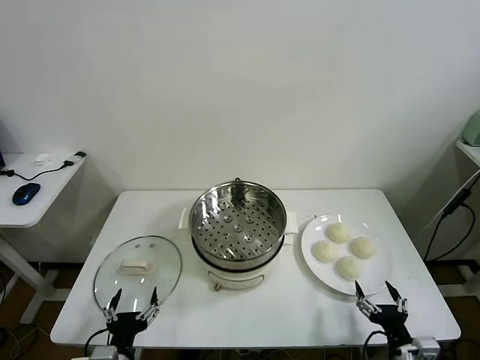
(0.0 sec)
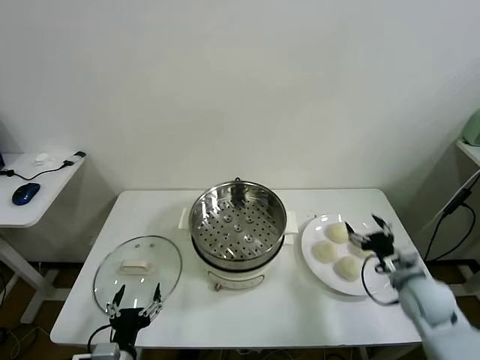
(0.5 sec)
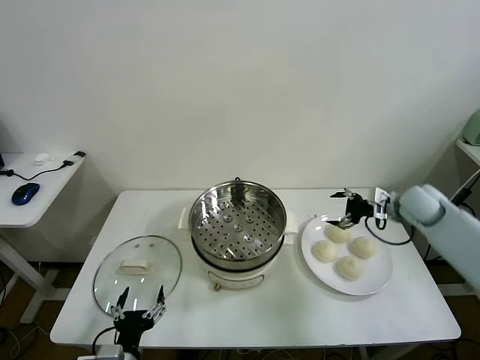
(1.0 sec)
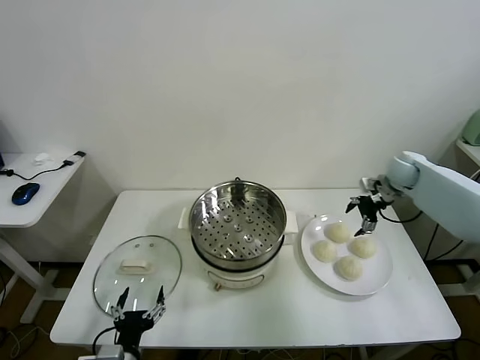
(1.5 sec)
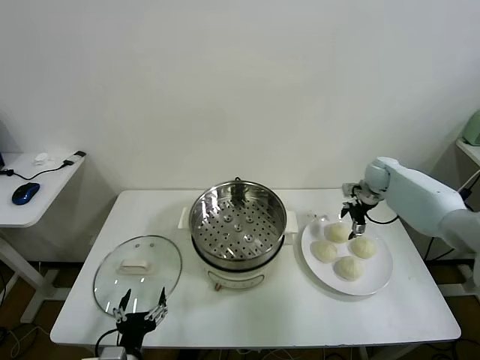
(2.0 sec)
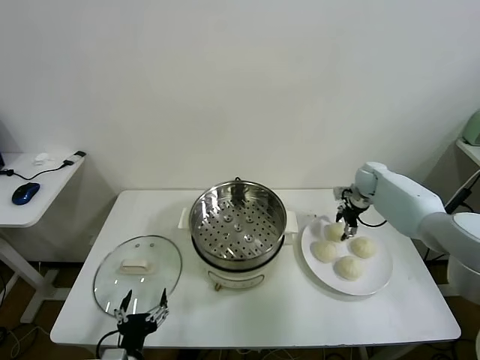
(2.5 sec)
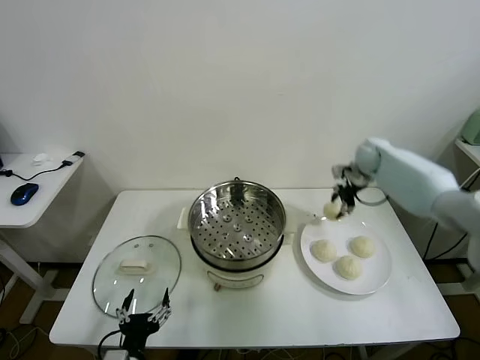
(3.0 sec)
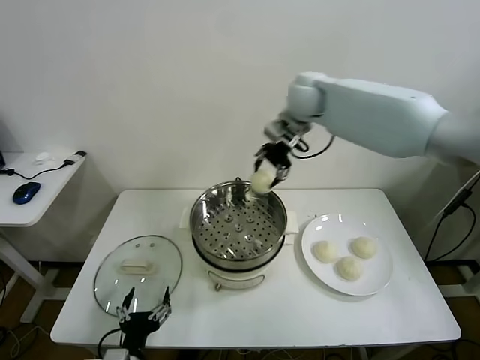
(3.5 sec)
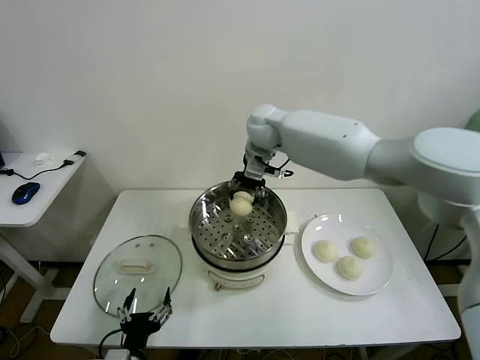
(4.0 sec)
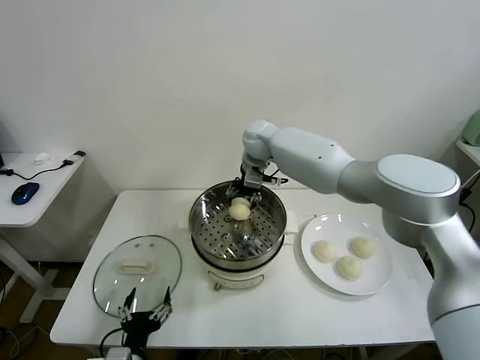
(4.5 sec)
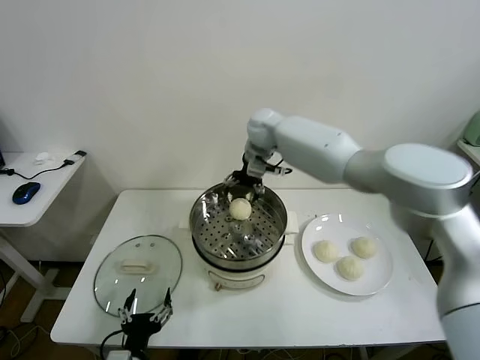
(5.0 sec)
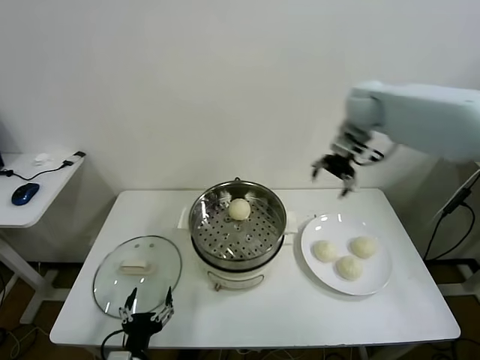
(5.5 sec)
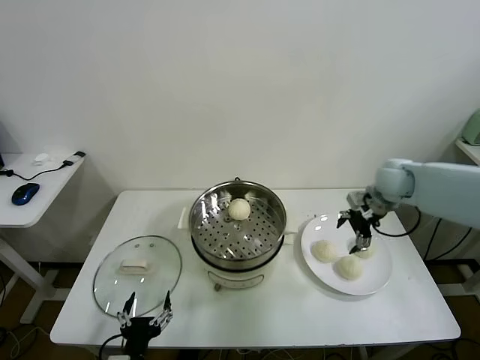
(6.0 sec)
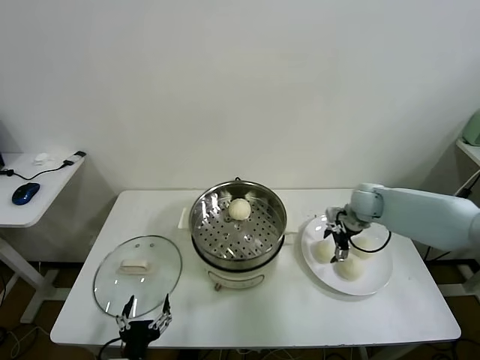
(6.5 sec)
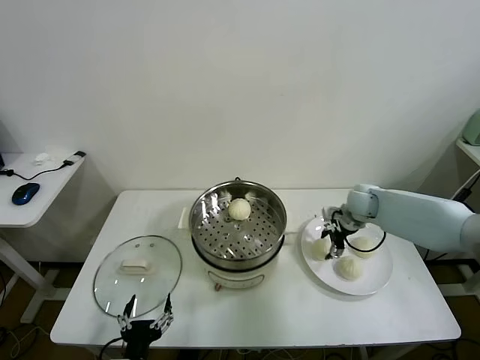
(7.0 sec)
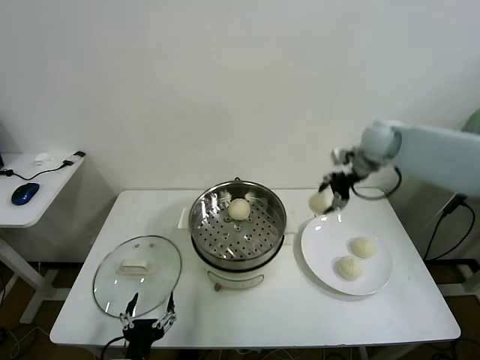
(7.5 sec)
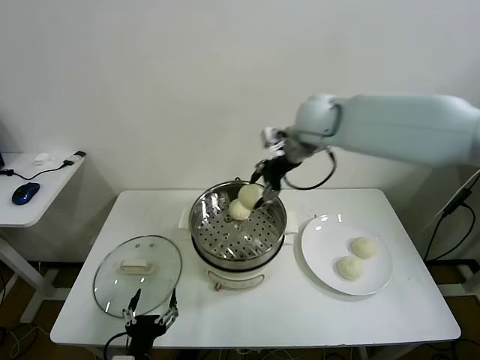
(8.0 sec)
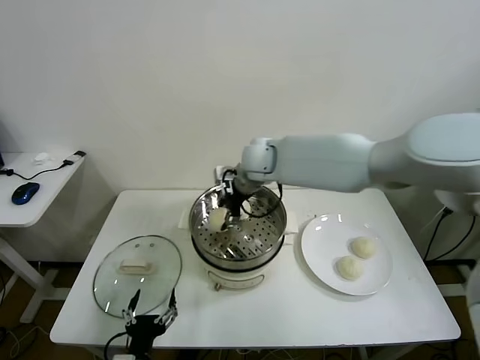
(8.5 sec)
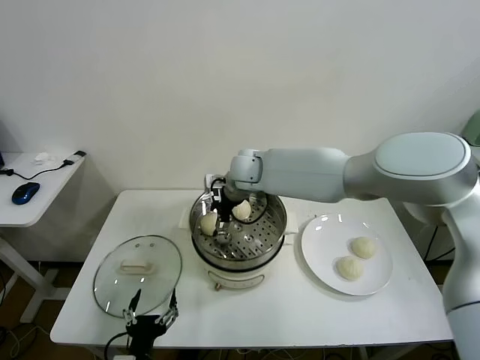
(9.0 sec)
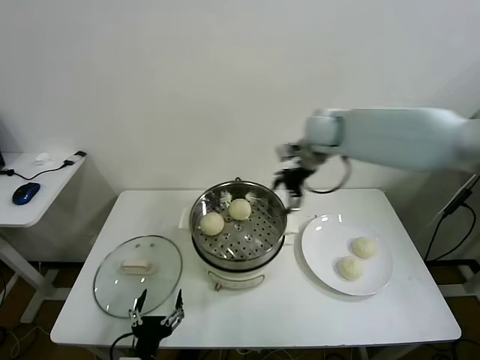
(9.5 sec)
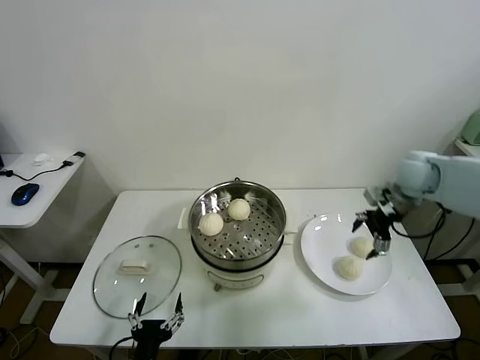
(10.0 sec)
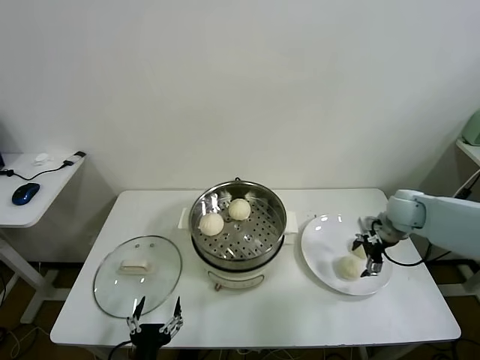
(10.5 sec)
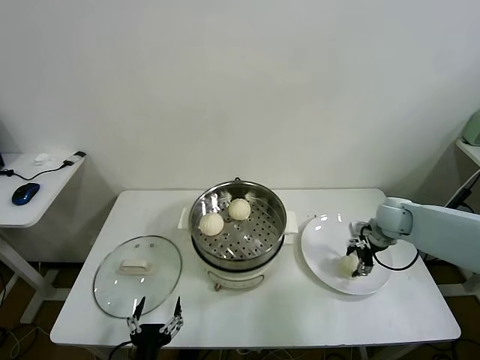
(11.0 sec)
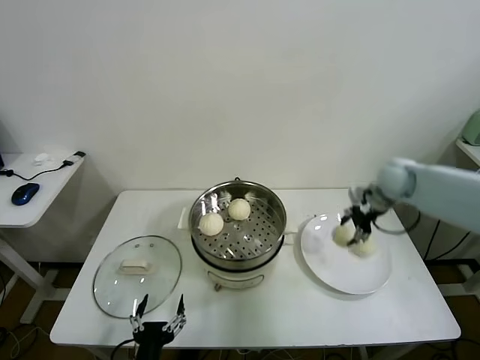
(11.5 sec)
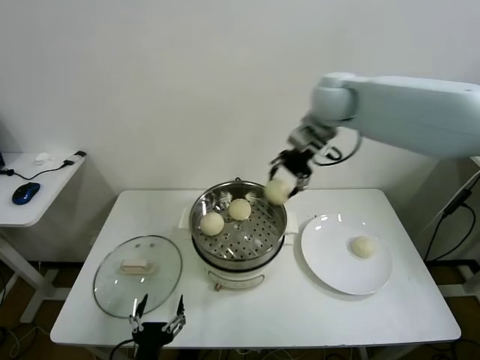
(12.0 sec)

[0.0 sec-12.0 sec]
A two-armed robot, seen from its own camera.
Task of the whole recording: take steamed baozi put them in steamer.
Step, 0.0 sec to 2.5 sec: Grasp the baozi in the plate with right gripper.
Step, 3.0 sec to 4.5 sec: Place the baozi on the steamer with right gripper.
Step, 5.0 sec to 6.5 sec: Grasp the baozi in the plate with right gripper.
Step, 7.5 sec to 9.0 sec: Place the baozi on the steamer with right gripper.
Step, 9.5 sec to 11.0 sec: Grasp the baozi in the plate with right gripper.
2.0 sec to 4.0 sec: The right gripper moves to the left and upward, some 35 cm, and closes up.
4.0 sec to 6.0 sec: The right gripper moves to the right, roughly 30 cm, and opens up.
6.0 sec to 8.0 sec: The right gripper shifts some 30 cm to the left and upward, and closes its fingers.
8.0 sec to 10.0 sec: The right gripper is displaced to the right and downward by some 30 cm, and opens its fingers.
10.0 sec to 12.0 sec: The right gripper shifts some 30 cm to the left and upward, and closes its fingers.

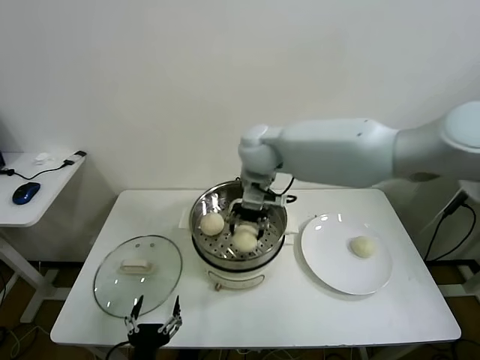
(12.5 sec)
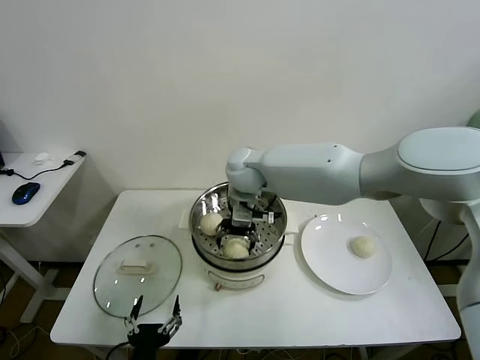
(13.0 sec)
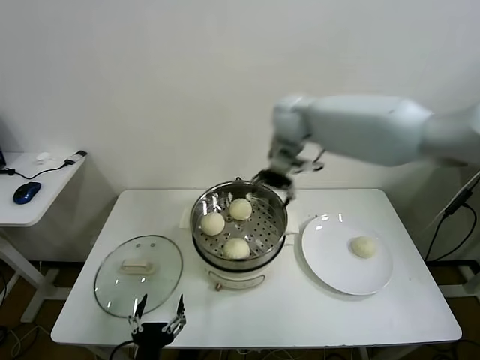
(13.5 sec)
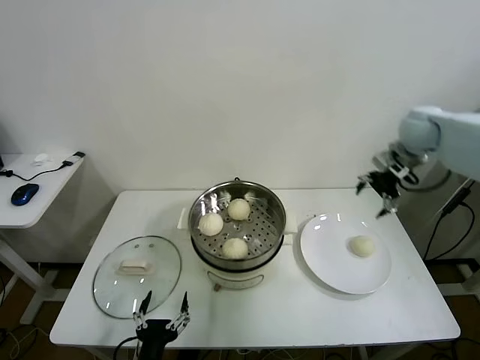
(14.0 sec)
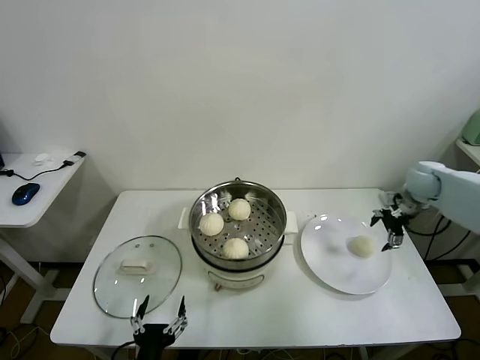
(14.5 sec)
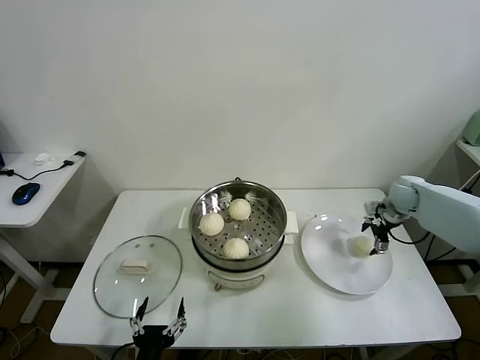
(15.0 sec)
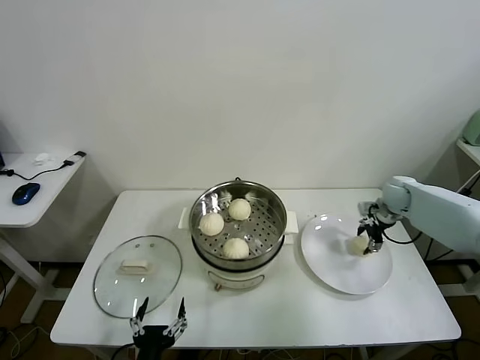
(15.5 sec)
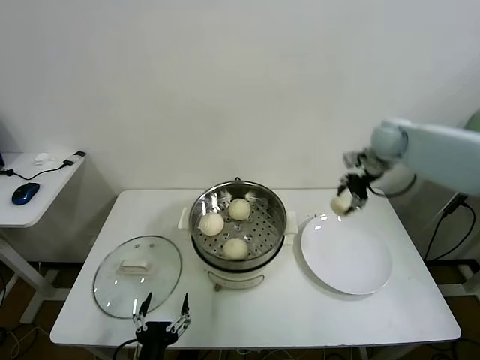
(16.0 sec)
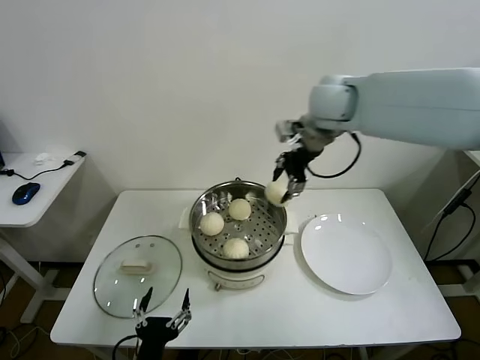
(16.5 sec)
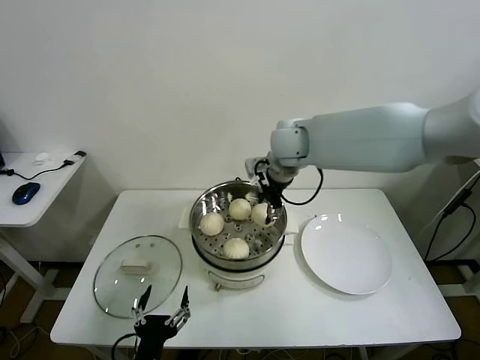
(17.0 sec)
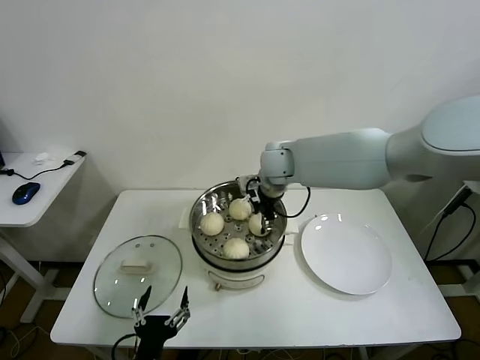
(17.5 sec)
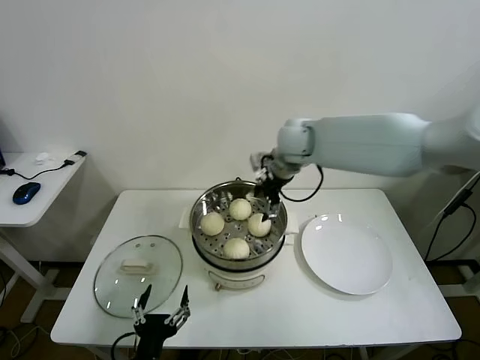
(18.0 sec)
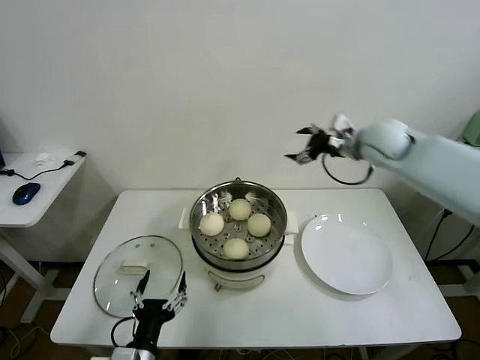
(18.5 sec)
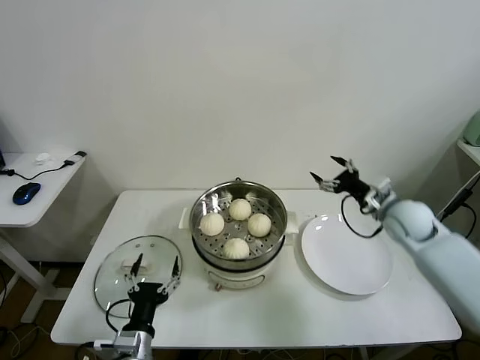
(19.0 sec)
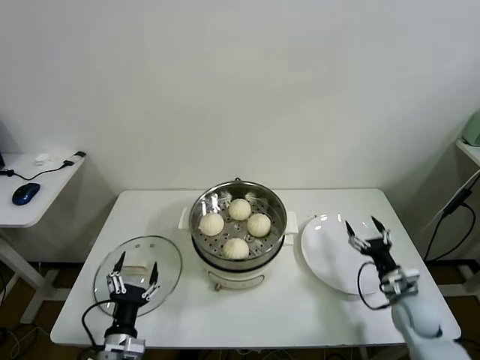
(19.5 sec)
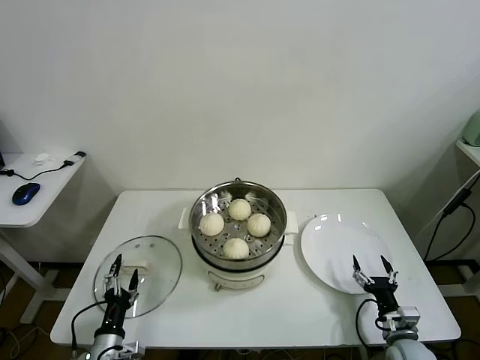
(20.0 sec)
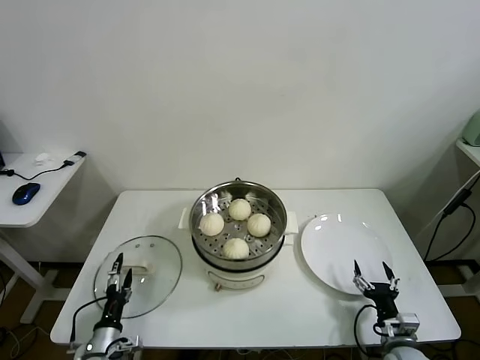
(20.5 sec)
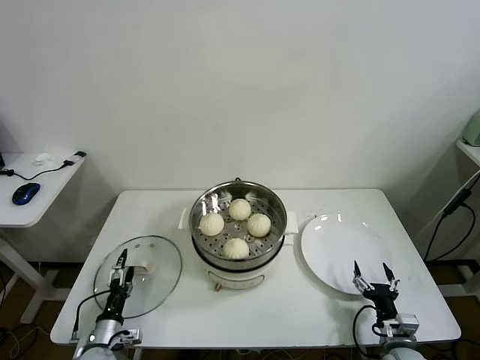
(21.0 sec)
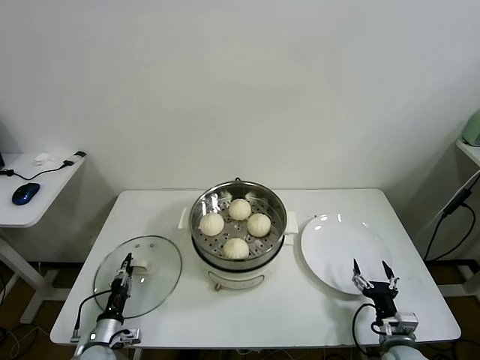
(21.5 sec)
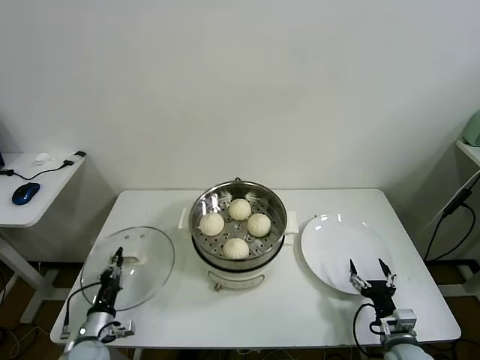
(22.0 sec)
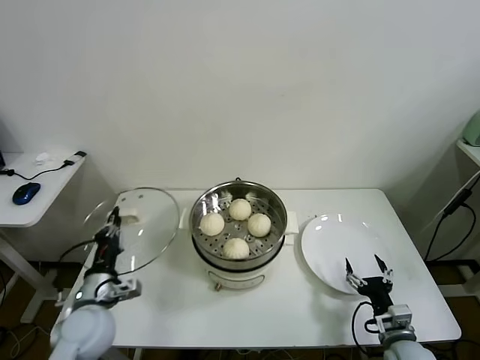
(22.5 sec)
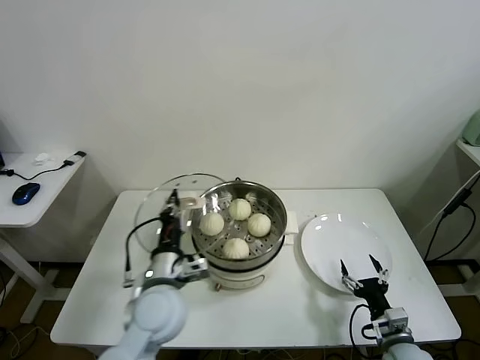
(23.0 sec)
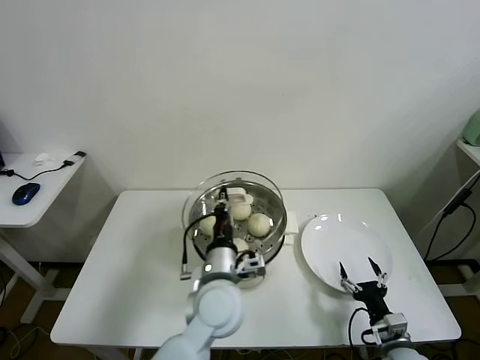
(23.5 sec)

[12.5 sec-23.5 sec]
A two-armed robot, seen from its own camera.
Task of the whole recording: take steamed baozi put them in steamer.
Step, 13.5 sec to 15.0 sec: Grasp the baozi in the plate with right gripper.
Step, 15.5 sec to 17.5 sec: Place the baozi on the steamer with right gripper.
Step, 18.0 sec to 21.5 sec: Grasp the pot lid with left gripper.
12.5 sec to 14.5 sec: The right gripper shifts roughly 40 cm to the right, and opens.
14.5 sec to 16.0 sec: The right gripper is displaced upward and to the left by roughly 15 cm, and closes up.
16.0 sec to 18.0 sec: The right gripper moves to the left, roughly 20 cm, and opens up.
18.0 sec to 20.0 sec: The left gripper travels to the left, downward and forward by roughly 20 cm. The right gripper shifts approximately 60 cm downward, backward and to the right.
20.0 sec to 21.5 sec: The left gripper moves downward and forward, some 10 cm, and closes up.
21.5 sec to 23.5 sec: The left gripper goes roughly 40 cm to the right and upward, and closes its fingers.

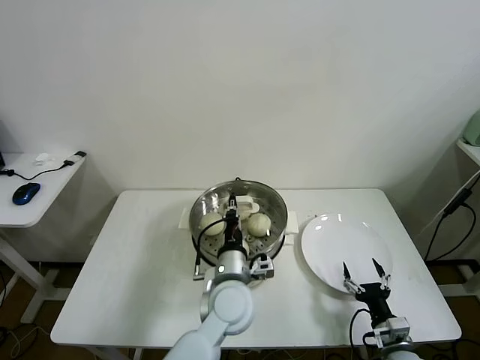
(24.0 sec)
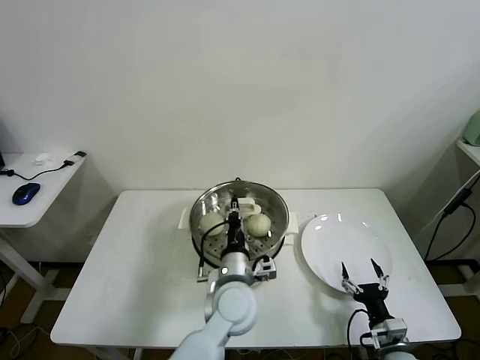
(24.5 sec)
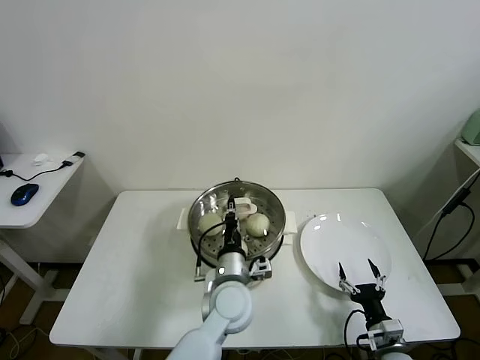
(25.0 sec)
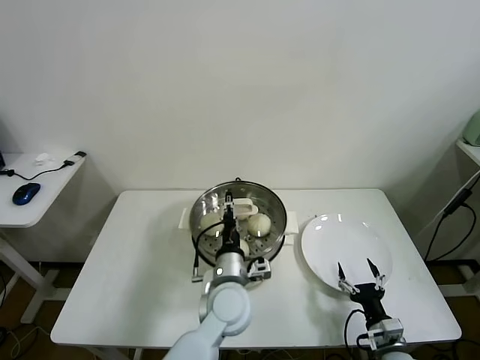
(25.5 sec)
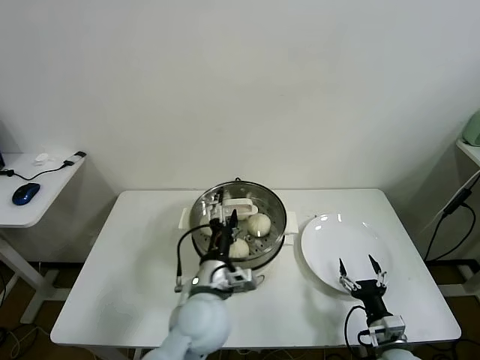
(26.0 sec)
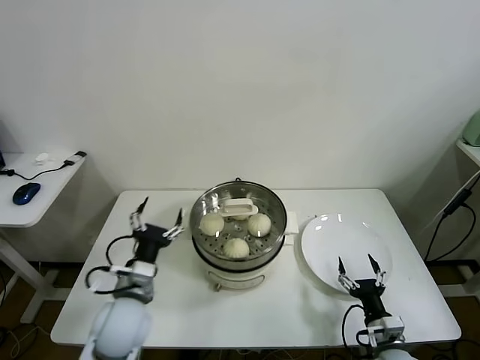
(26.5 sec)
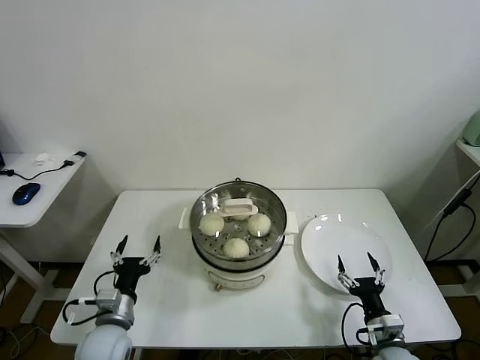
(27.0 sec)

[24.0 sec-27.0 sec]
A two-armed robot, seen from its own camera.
Task of the whole recording: take steamed baozi put them in steamer.
24.0 sec to 25.5 sec: The left gripper opens.
25.5 sec to 27.0 sec: The left gripper travels to the left by about 25 cm, and opens.
